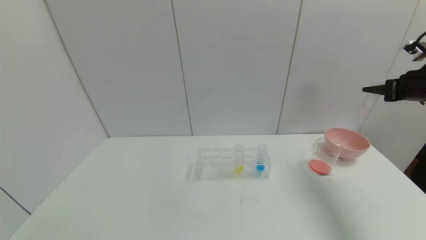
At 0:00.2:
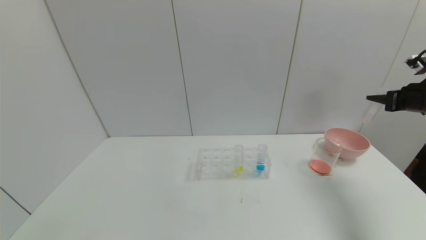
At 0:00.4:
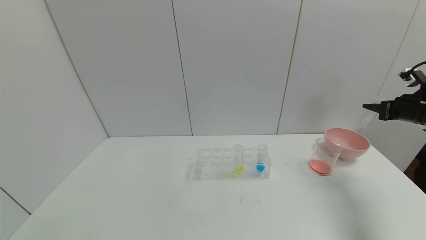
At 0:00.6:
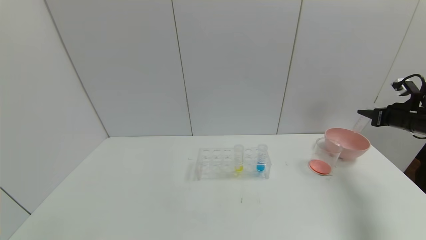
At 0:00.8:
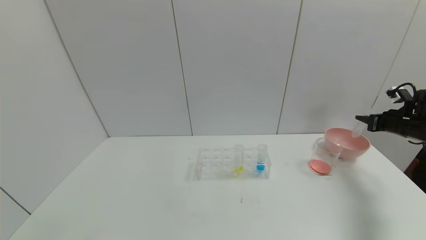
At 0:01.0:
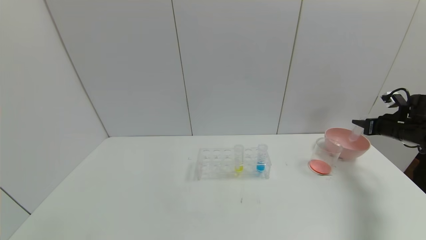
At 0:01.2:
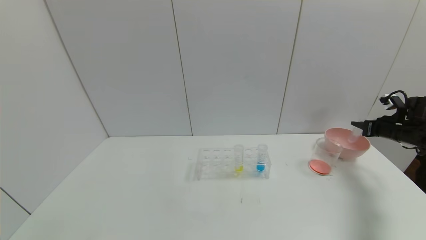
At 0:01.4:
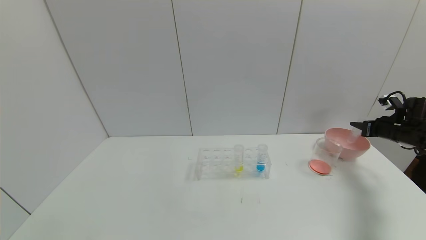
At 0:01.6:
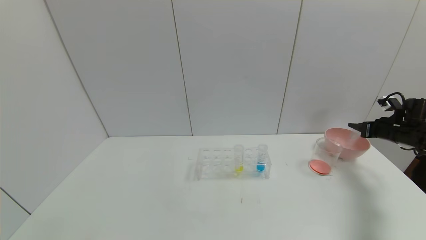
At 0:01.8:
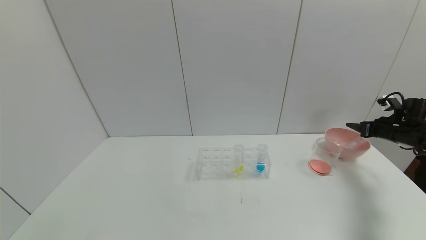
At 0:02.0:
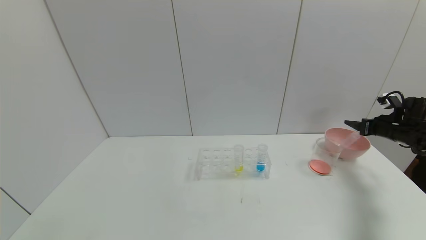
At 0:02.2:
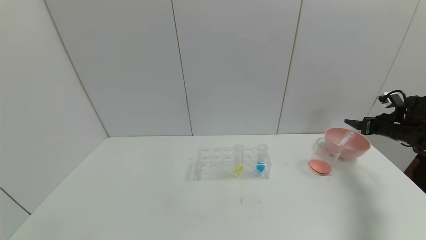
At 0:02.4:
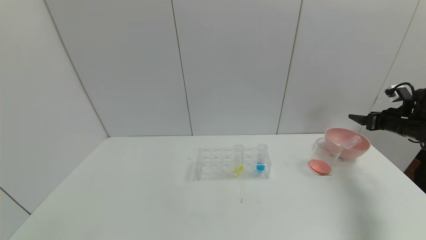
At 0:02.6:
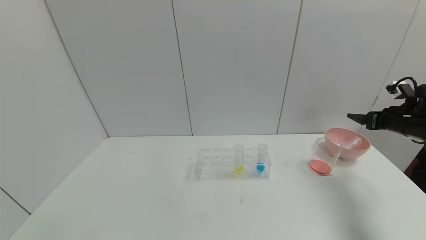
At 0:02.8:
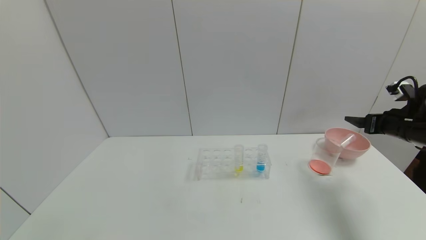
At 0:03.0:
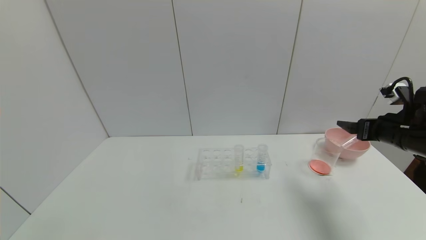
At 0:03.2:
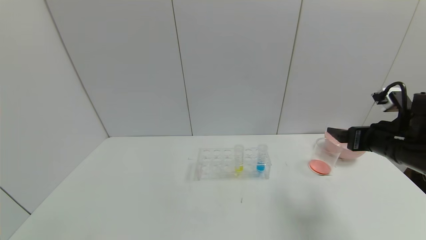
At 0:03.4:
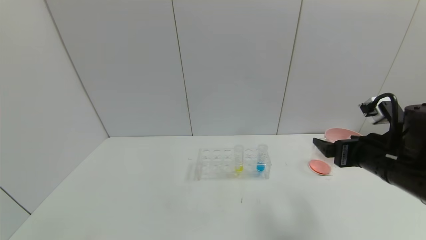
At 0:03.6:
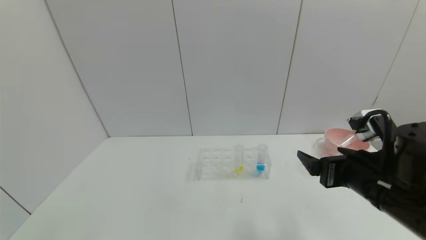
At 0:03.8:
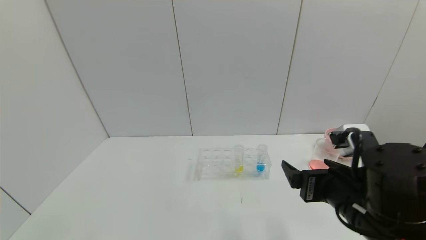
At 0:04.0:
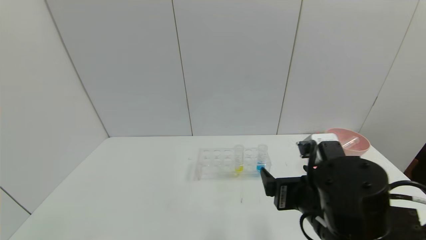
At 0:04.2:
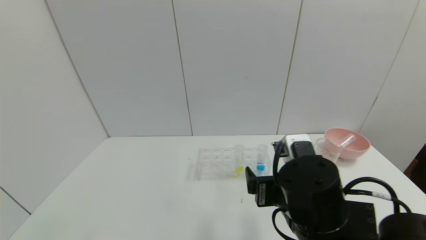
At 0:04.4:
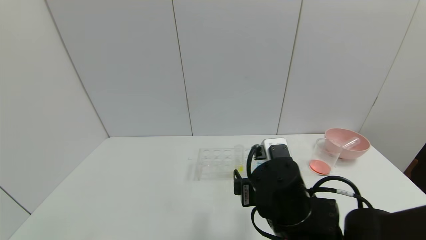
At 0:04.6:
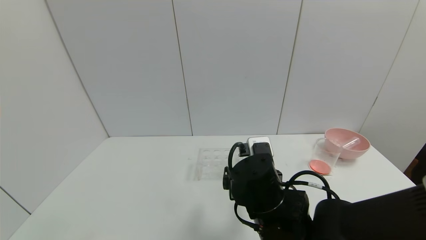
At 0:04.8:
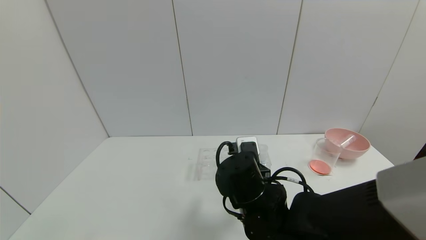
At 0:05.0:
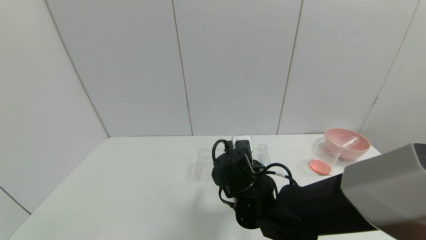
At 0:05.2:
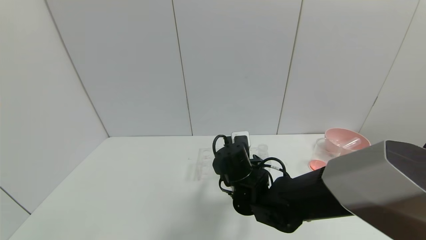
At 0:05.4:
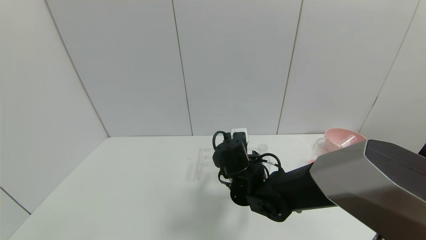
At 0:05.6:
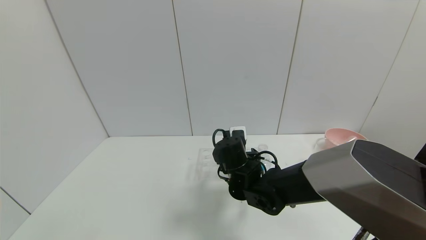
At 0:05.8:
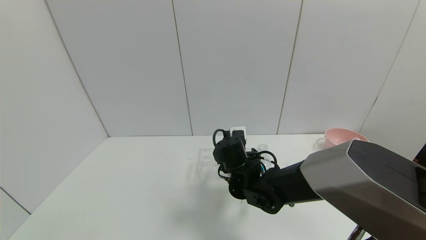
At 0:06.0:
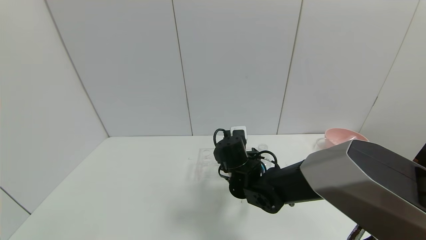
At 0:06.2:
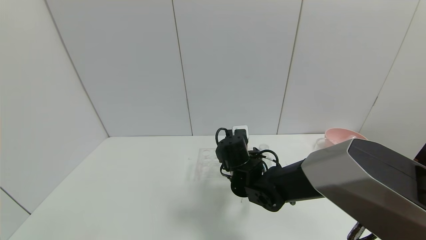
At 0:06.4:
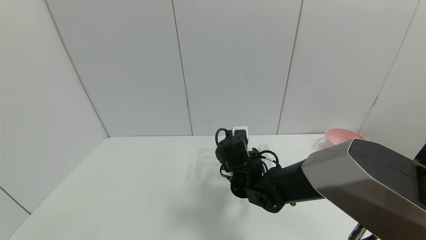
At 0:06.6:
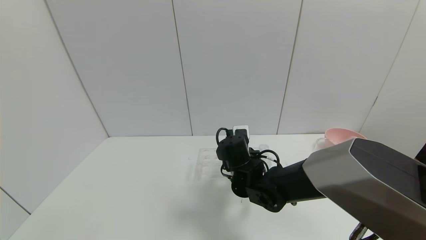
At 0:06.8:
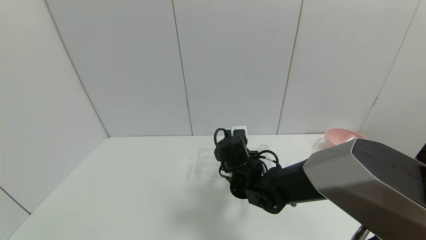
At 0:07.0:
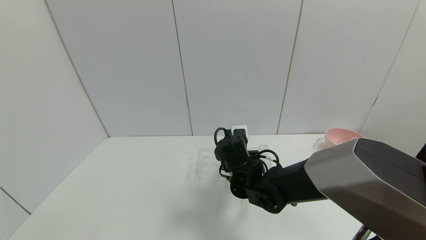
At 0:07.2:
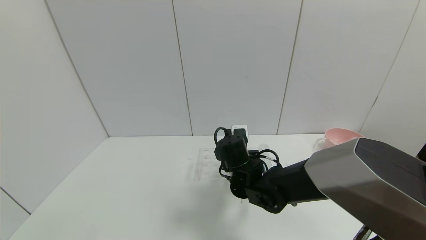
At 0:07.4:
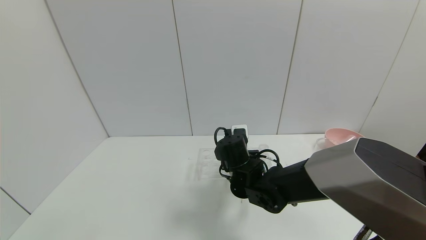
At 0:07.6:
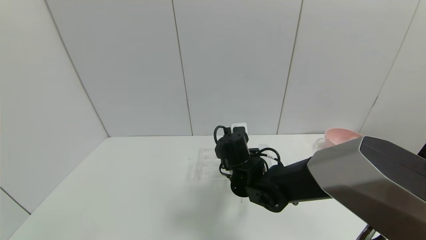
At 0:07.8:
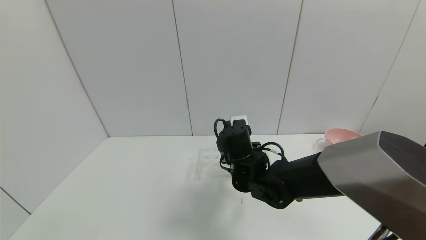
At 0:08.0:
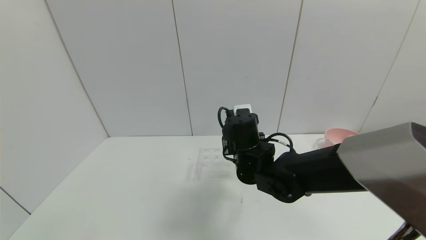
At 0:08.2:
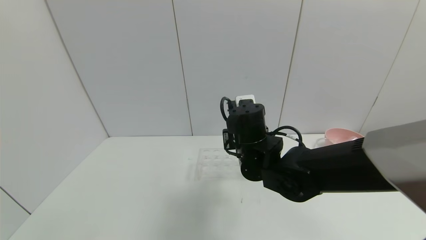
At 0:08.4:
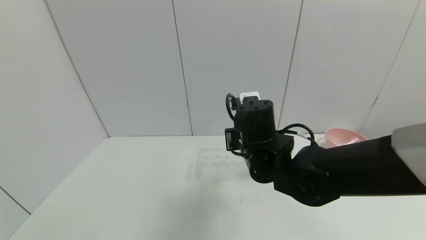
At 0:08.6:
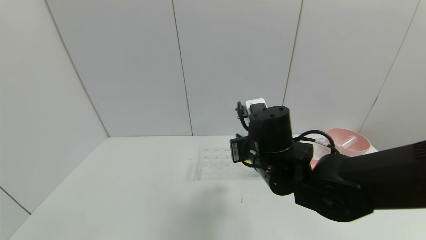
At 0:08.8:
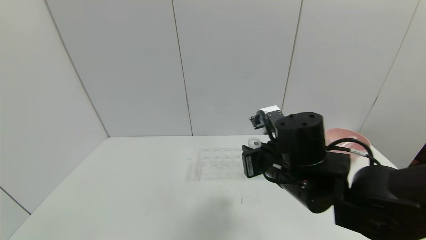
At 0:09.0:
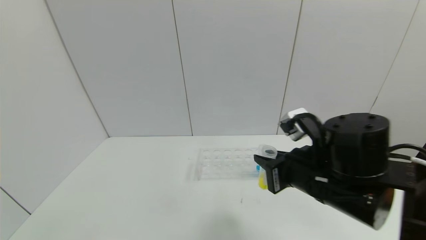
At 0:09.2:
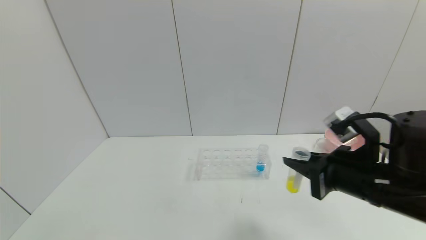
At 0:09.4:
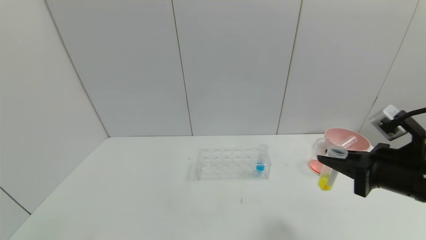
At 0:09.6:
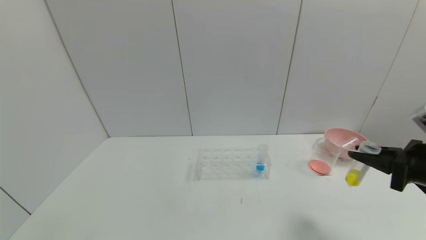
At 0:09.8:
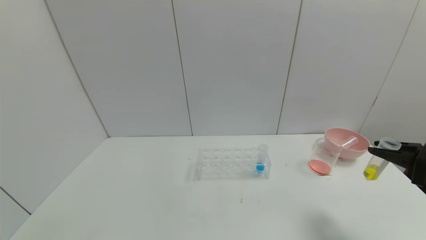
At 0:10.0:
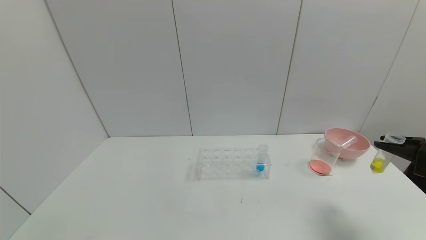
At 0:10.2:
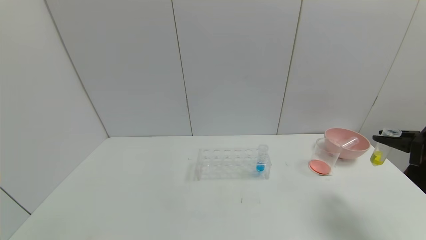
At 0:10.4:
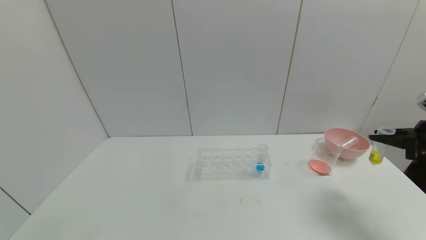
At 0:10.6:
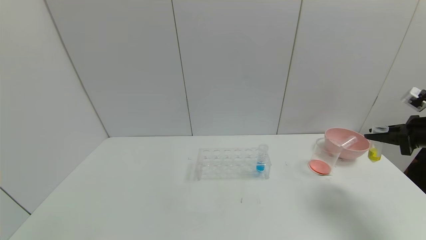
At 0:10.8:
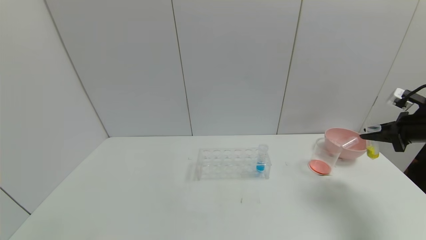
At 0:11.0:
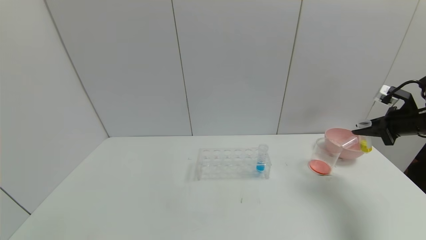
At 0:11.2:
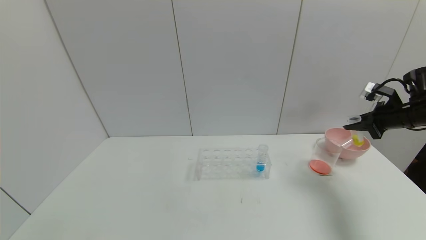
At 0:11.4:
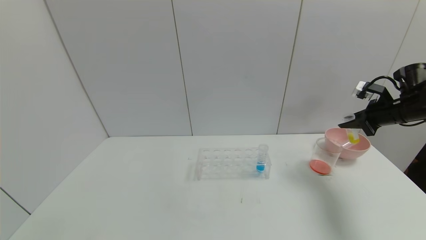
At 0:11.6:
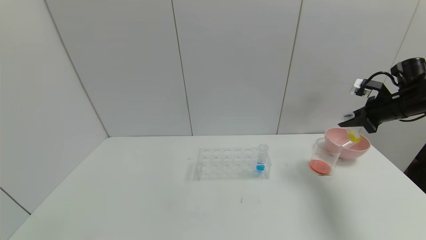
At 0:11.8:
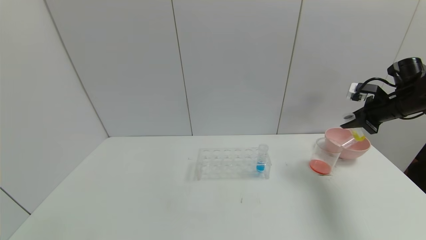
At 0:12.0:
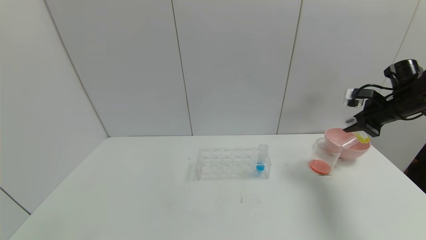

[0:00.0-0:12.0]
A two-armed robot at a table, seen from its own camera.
Task of the whole recording: pick up the test tube with yellow pigment and the test tube with red pigment by grippers and pour them into the beaker.
Step, 0:00.0 to 0:01.8: Place the test tube into the bowl with the right gripper.
Step, 0:02.0 to 0:06.8: Grasp the yellow reagent with the right gripper.
0:00.0 to 0:01.6: The right gripper travels downward by approximately 15 cm.
0:01.6 to 0:03.0: The right gripper is displaced to the left, backward and upward by some 20 cm, and opens up.
0:03.0 to 0:04.4: The right gripper shifts roughly 30 cm to the left.
0:04.4 to 0:06.0: The right gripper heads forward and downward, covering some 15 cm.
0:06.0 to 0:07.6: The right gripper closes up.
0:07.6 to 0:09.0: The right gripper travels backward, to the right and upward by about 20 cm.
0:09.0 to 0:10.4: The right gripper moves to the right, approximately 30 cm.
0:10.4 to 0:12.0: The right gripper is displaced forward by roughly 15 cm.

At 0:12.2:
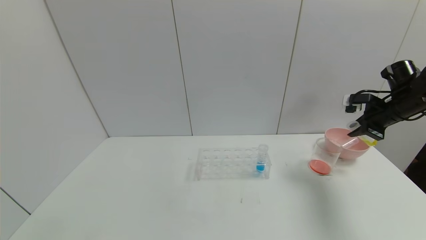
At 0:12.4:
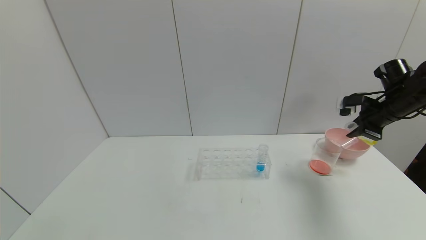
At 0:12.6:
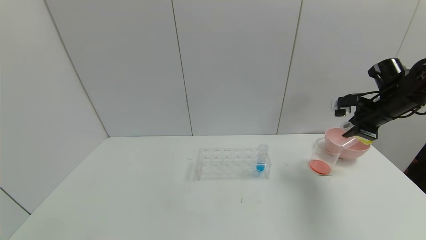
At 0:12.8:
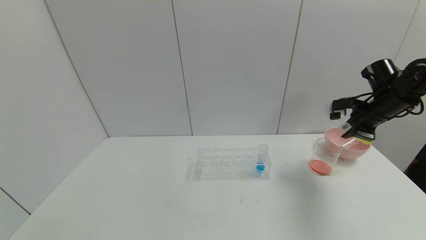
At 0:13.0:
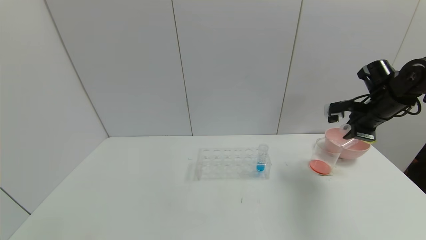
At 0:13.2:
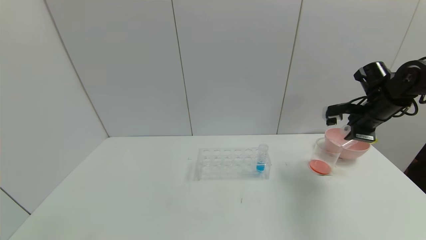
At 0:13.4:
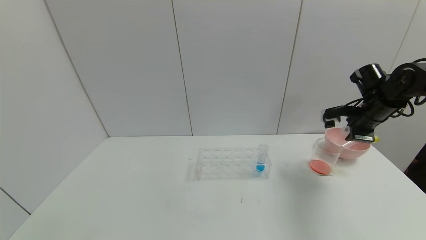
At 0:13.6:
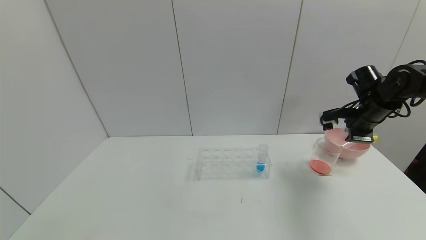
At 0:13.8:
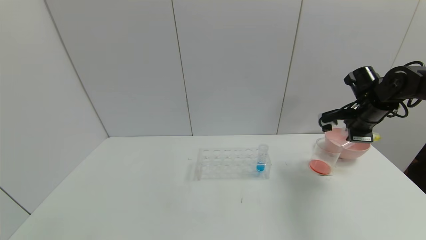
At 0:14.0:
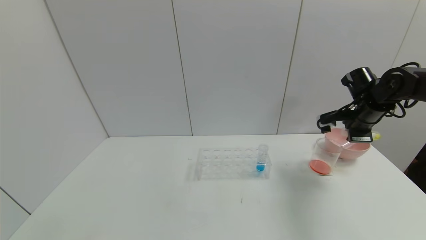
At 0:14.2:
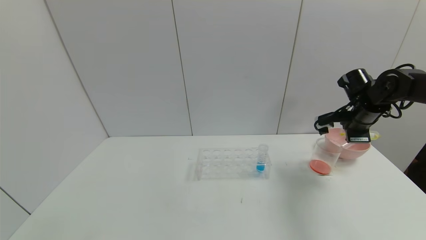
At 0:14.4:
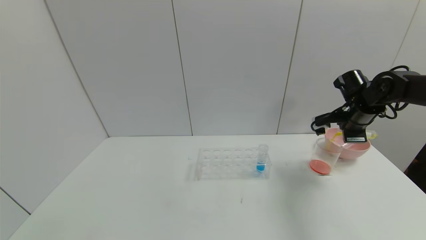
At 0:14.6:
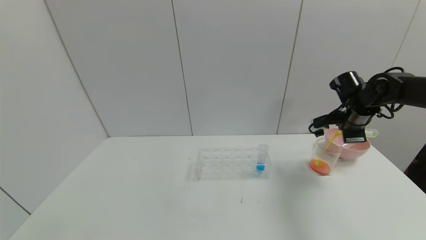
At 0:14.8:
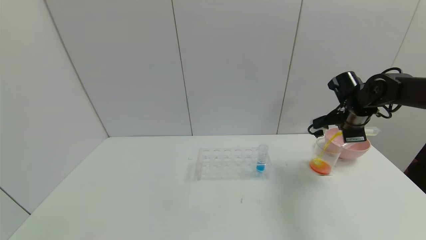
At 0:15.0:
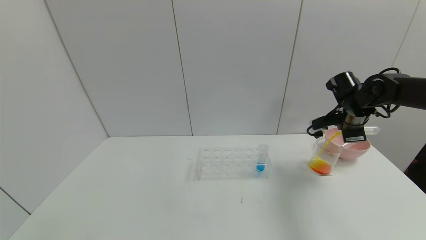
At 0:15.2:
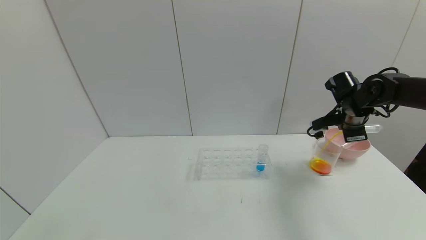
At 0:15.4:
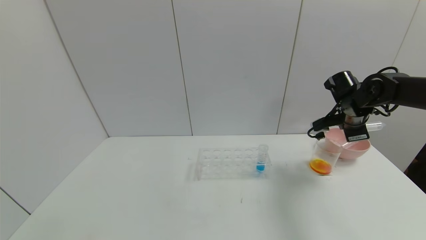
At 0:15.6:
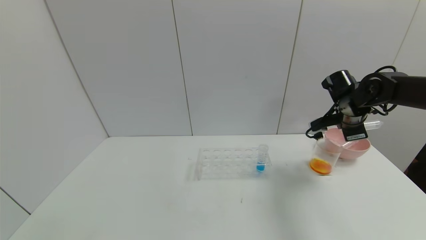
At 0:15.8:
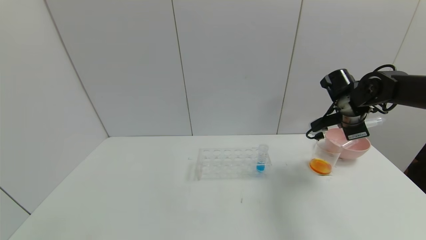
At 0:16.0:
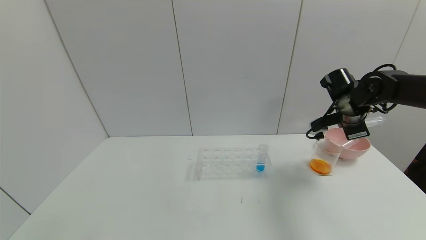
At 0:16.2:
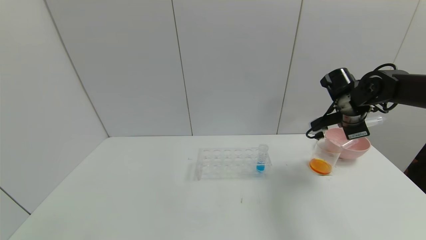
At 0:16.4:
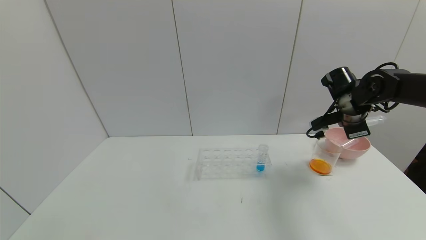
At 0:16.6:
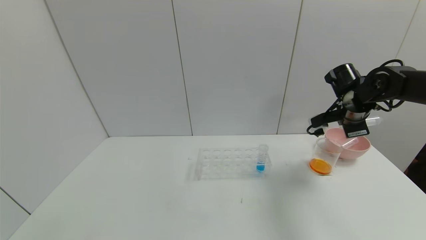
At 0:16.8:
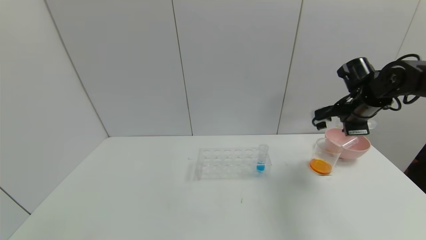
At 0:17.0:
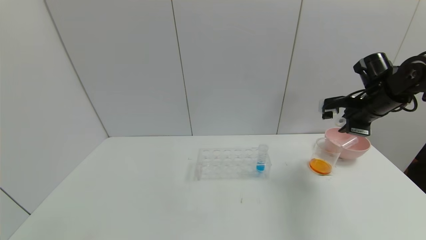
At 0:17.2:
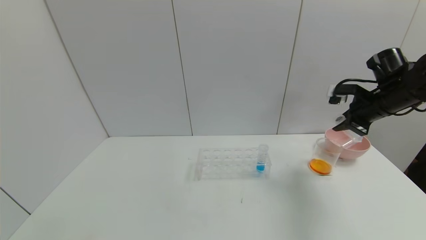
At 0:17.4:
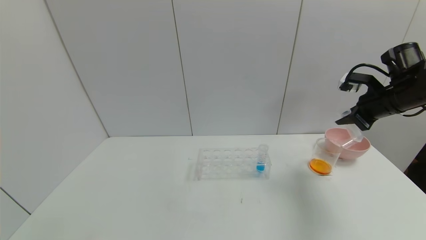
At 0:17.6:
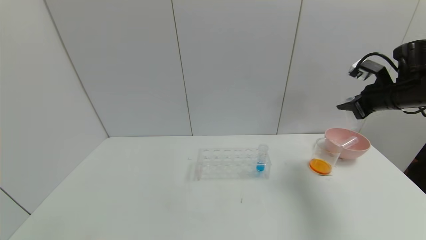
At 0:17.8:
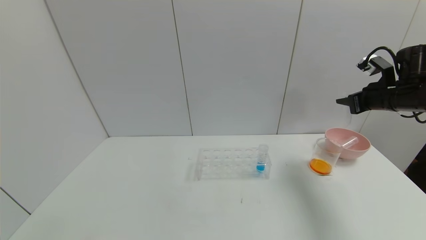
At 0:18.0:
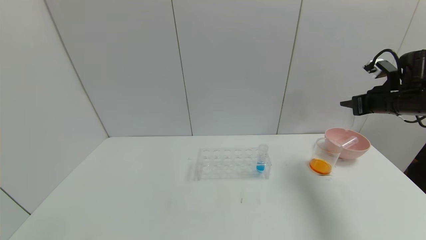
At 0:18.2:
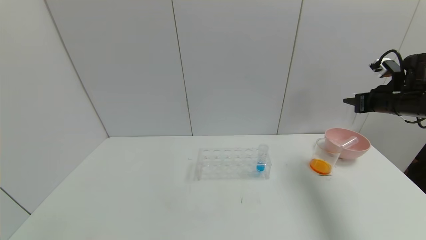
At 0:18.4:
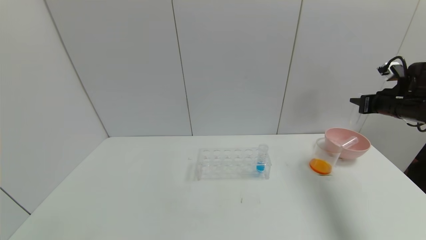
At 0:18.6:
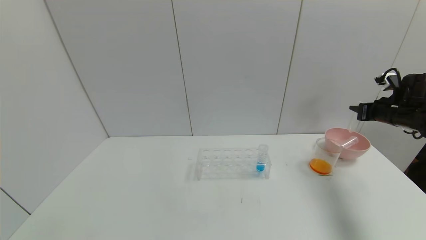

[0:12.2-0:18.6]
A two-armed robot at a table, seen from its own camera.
Task of the whole recording: pick up the test tube with yellow pigment and the test tube with red pigment by grippers and pour them into the beaker.
Step, 0:12.2 to 0:15.8: Pour the yellow reagent into the graduated cylinder with the right gripper.
0:12.2 to 0:13.8: The right gripper is displaced to the left by approximately 5 cm.
0:15.4 to 0:17.0: The right gripper shifts by about 5 cm.
0:17.0 to 0:18.6: The right gripper travels to the right by approximately 10 cm.
